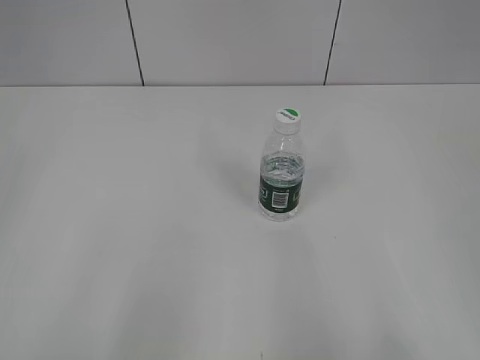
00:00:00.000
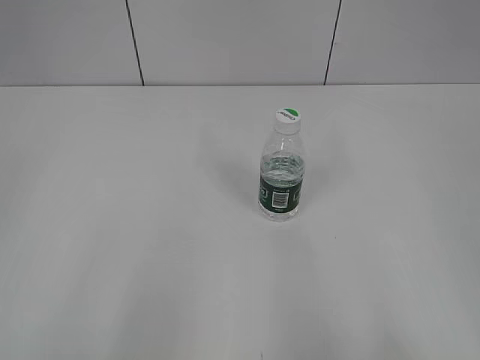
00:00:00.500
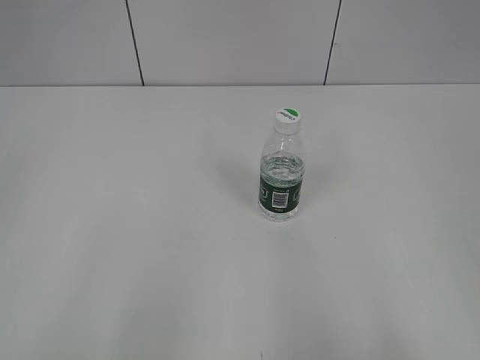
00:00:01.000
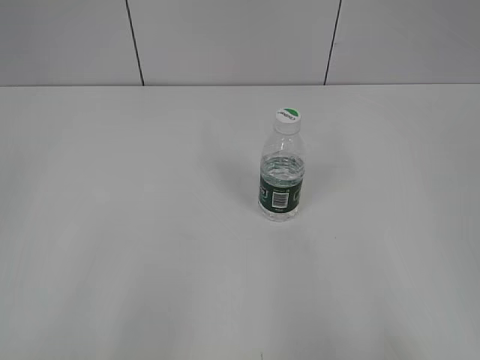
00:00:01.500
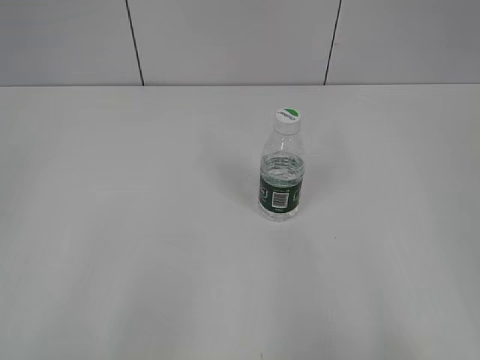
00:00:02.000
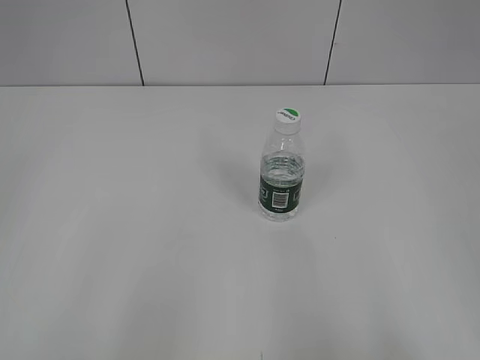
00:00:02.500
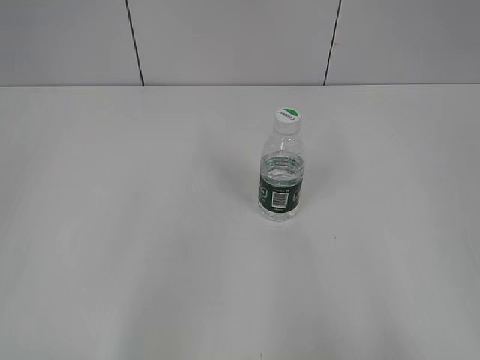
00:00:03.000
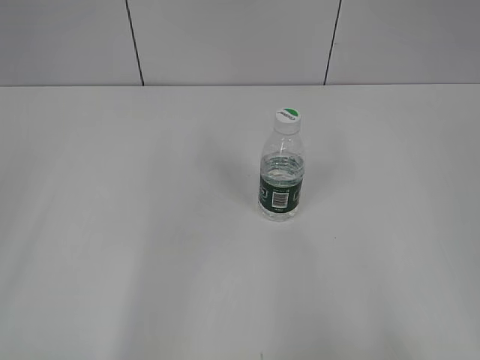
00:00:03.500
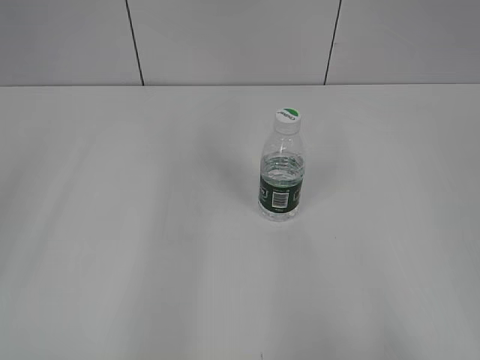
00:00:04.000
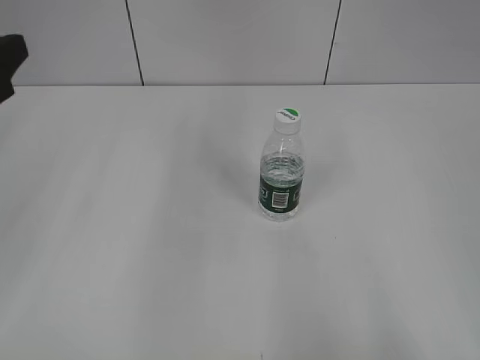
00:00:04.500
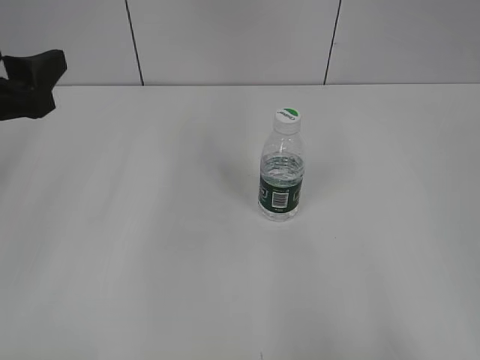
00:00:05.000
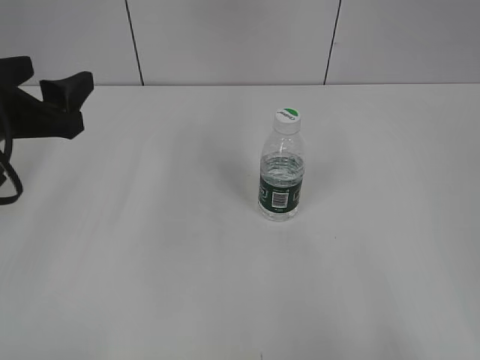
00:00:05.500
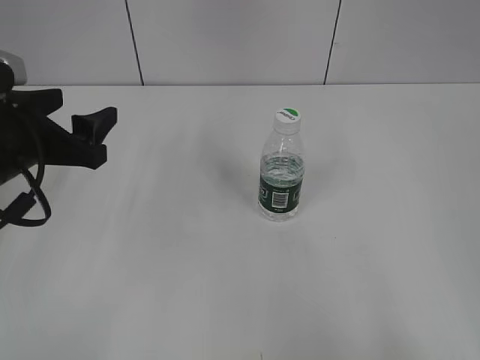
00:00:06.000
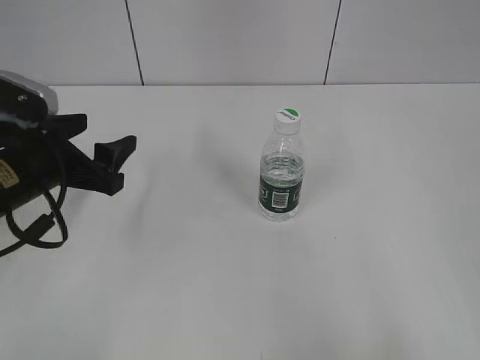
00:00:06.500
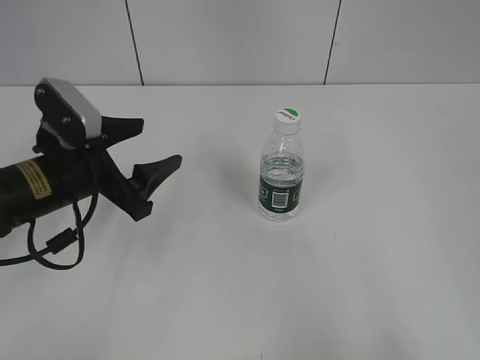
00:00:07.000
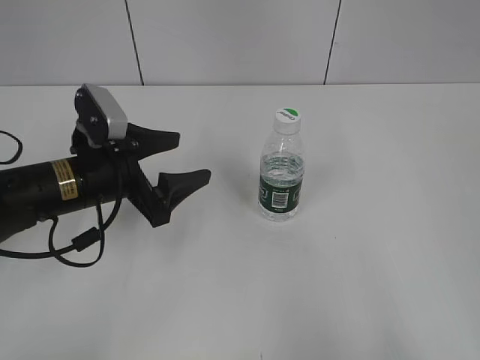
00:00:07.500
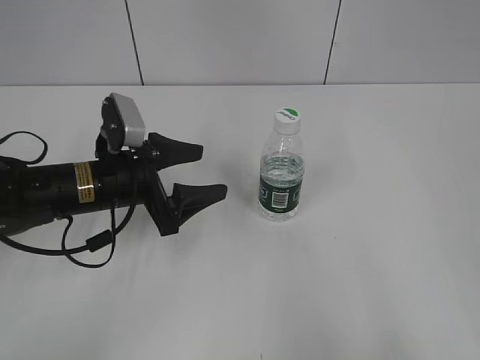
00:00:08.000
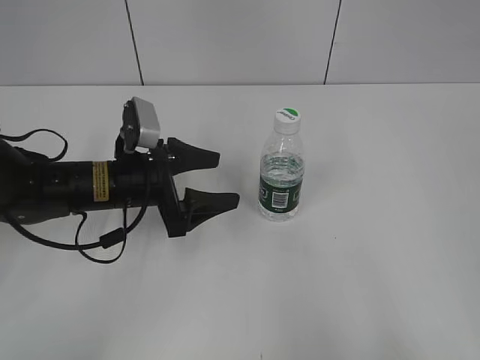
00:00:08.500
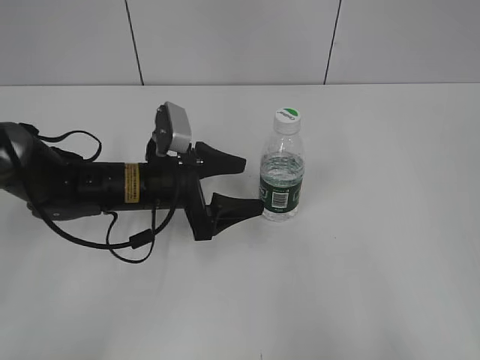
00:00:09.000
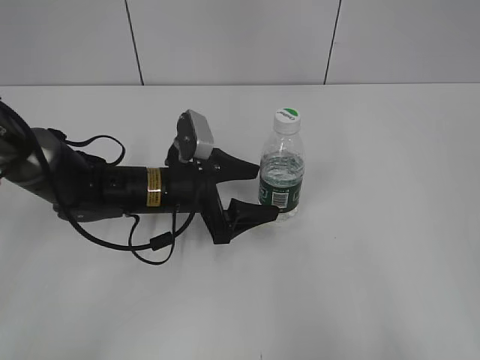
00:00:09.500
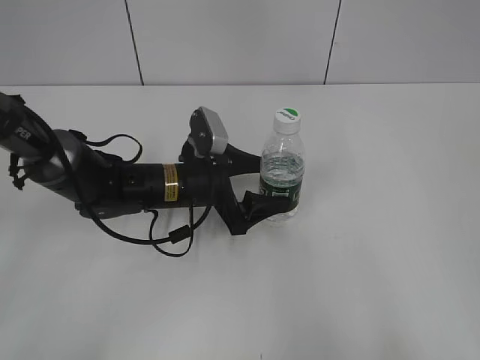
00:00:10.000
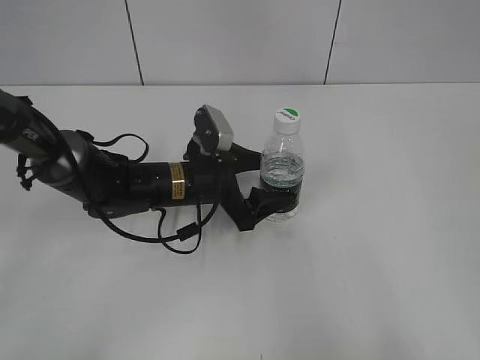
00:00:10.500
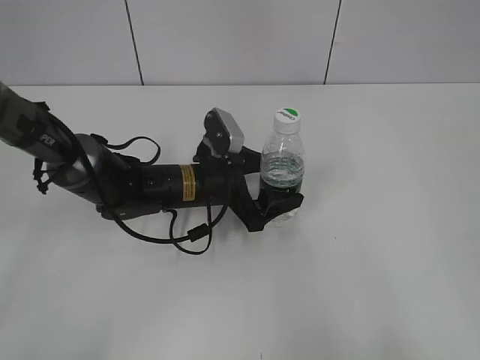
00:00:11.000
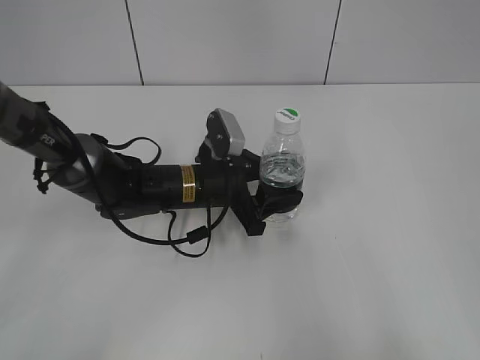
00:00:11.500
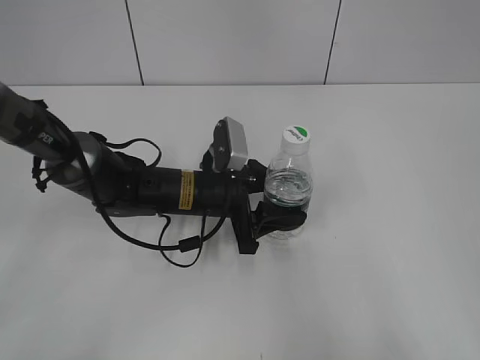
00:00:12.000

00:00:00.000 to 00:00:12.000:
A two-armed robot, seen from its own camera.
00:00:04.000 to 00:00:06.000: The left gripper goes about 15 cm downward, forward and to the right.
00:00:06.000 to 00:00:08.000: The left gripper travels downward and to the right by approximately 10 cm.
00:00:08.000 to 00:00:10.000: The left gripper heads to the right, covering roughly 10 cm.
00:00:10.000 to 00:00:12.000: The left gripper closes its fingers.

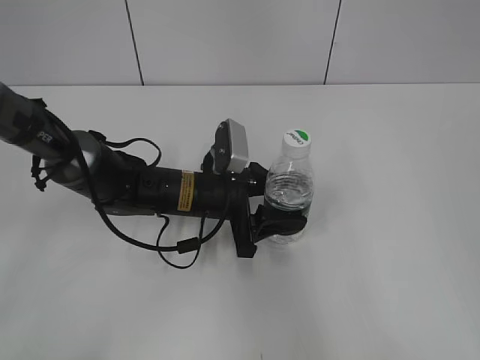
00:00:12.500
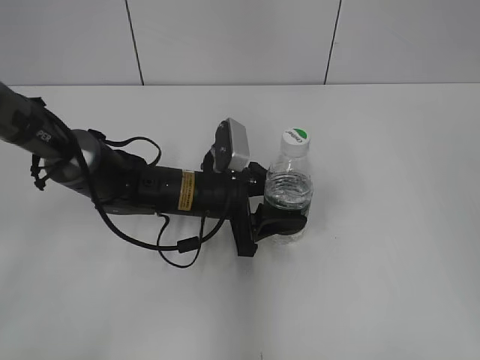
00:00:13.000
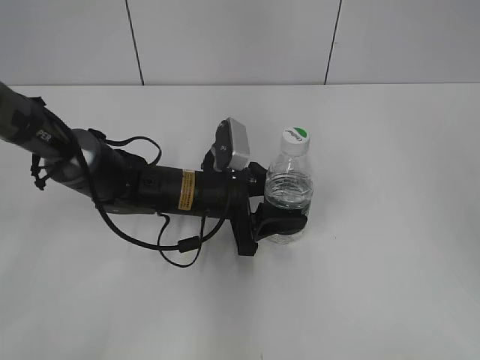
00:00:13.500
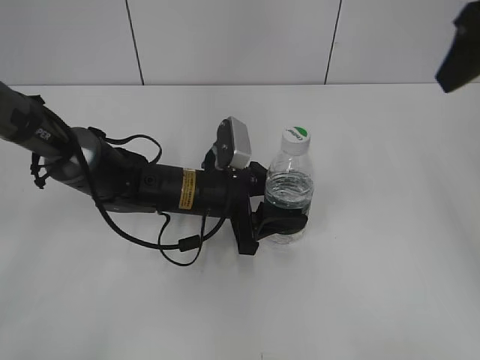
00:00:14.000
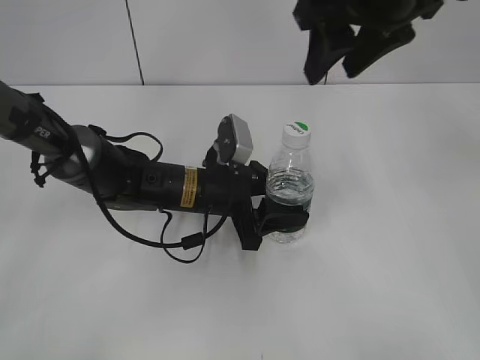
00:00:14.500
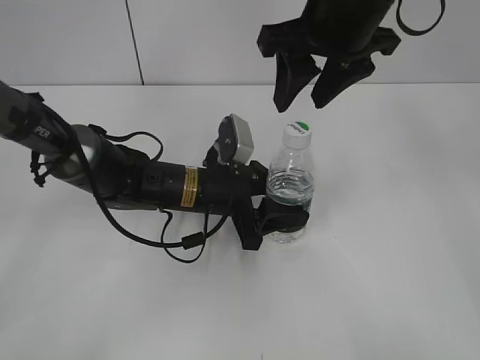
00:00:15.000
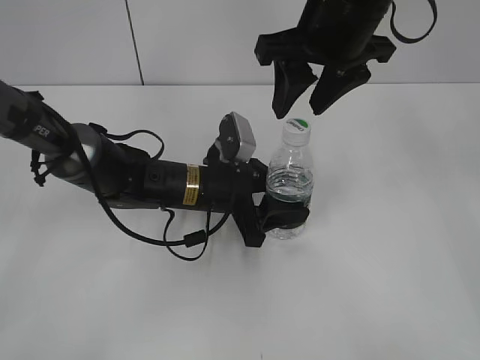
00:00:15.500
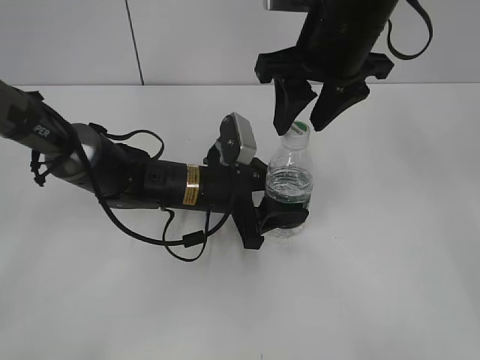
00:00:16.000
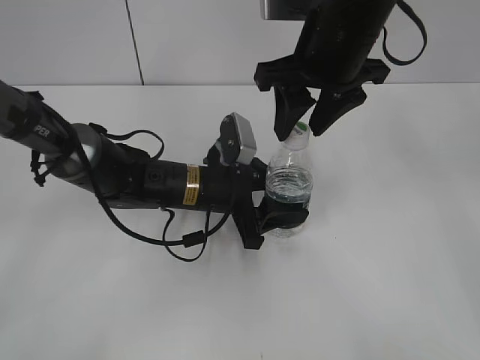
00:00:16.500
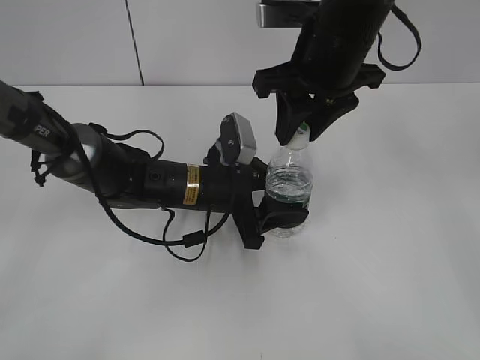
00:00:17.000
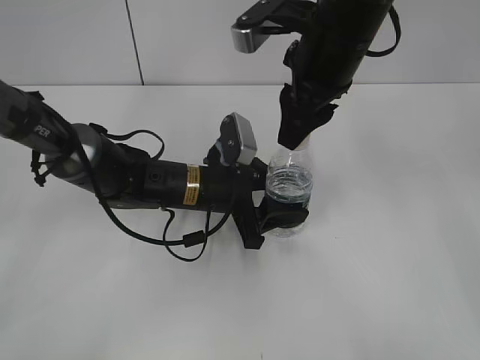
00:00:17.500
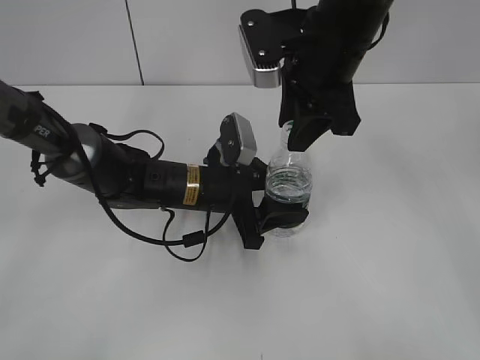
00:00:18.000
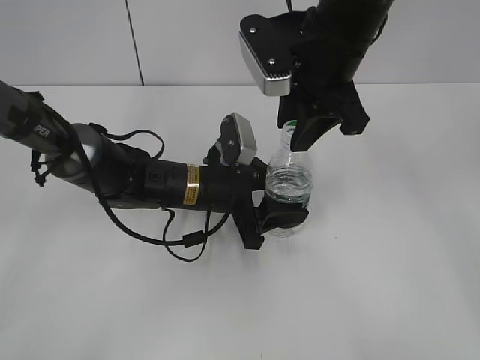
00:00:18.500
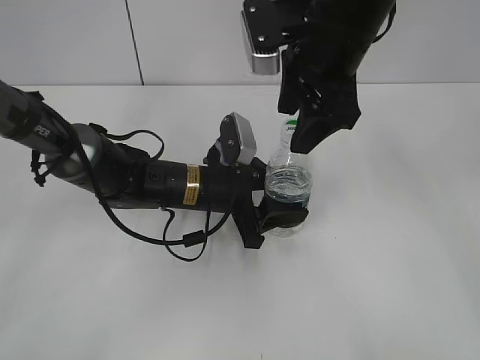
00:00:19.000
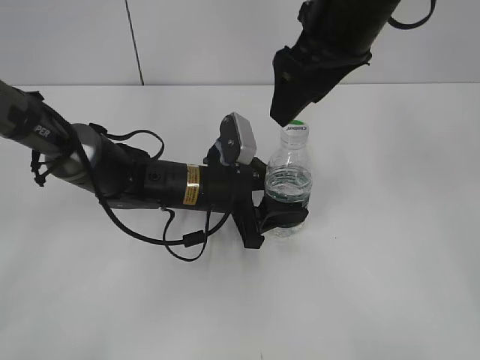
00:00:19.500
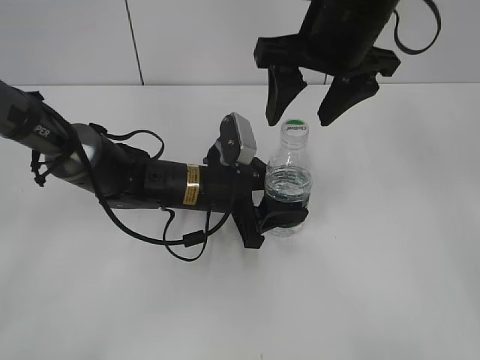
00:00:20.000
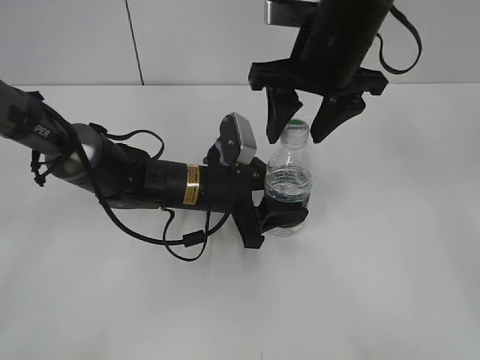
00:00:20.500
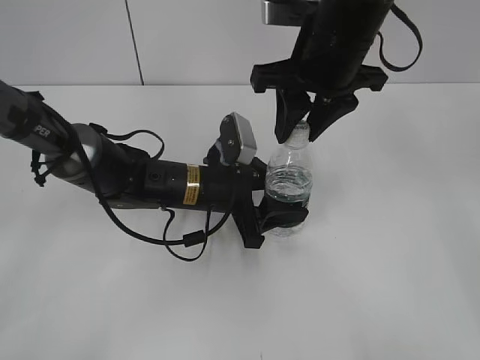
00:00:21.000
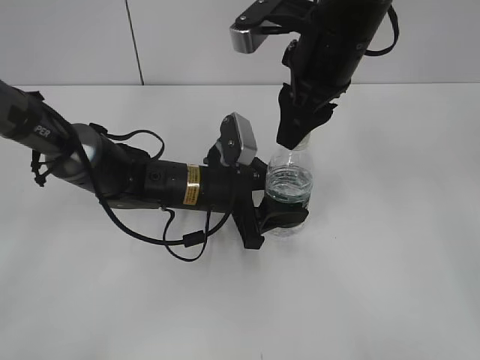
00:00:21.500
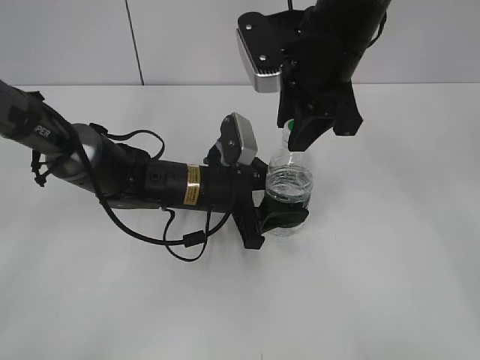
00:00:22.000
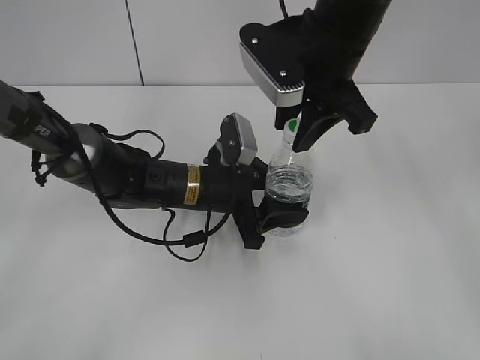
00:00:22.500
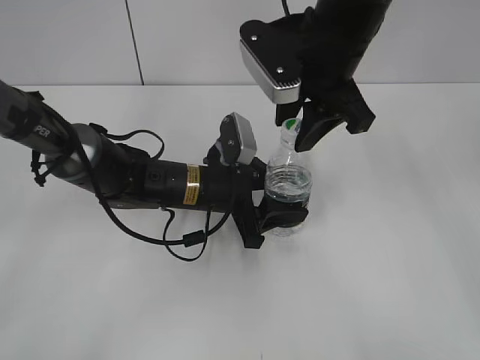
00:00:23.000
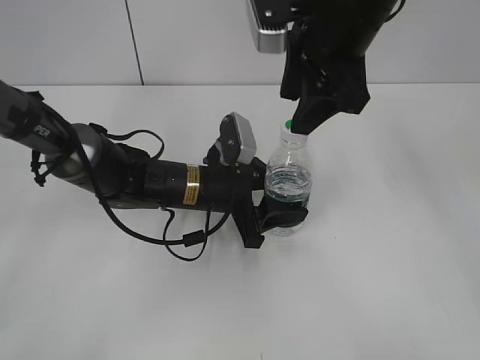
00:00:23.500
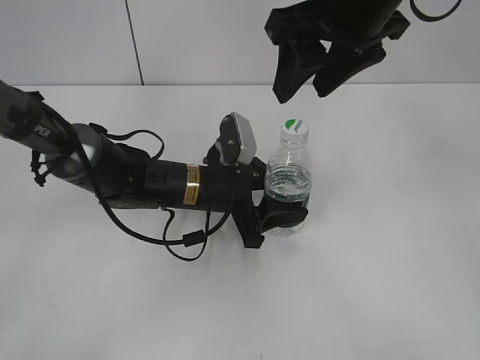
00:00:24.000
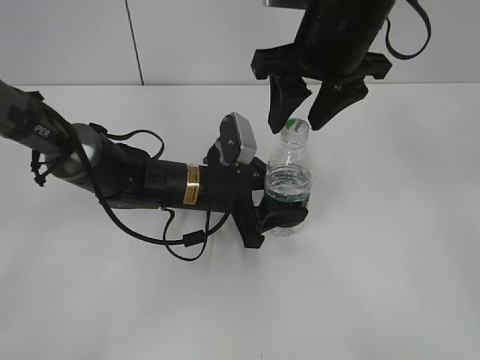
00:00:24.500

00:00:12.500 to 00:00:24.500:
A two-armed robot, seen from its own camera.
00:00:12.500 to 00:00:14.500: The right gripper travels forward and to the left by about 35 cm, and closes.
00:00:14.500 to 00:00:16.500: The right gripper goes approximately 5 cm downward.
00:00:16.500 to 00:00:18.500: The right gripper closes up.
00:00:18.500 to 00:00:20.500: The right gripper opens its fingers.
00:00:20.500 to 00:00:22.500: The right gripper closes up.
00:00:22.500 to 00:00:24.500: The right gripper opens up.

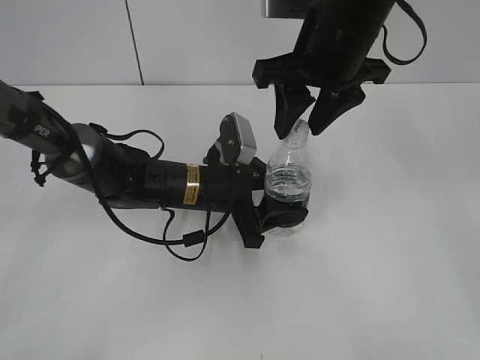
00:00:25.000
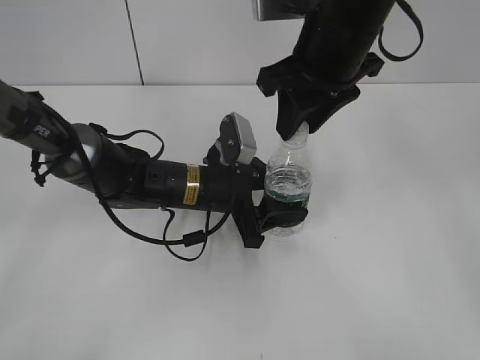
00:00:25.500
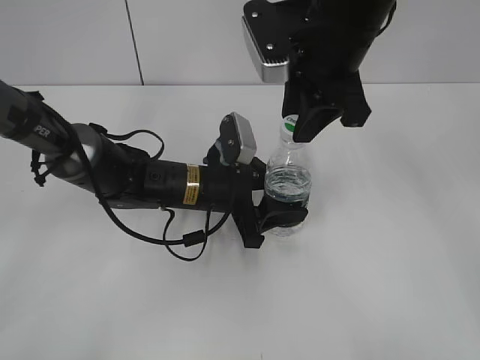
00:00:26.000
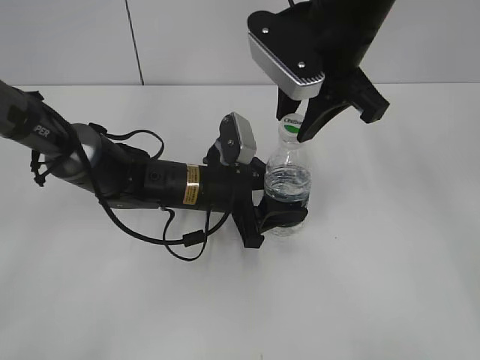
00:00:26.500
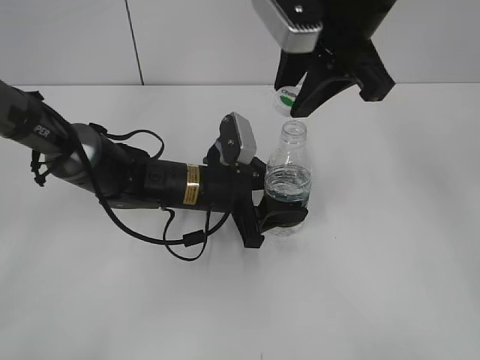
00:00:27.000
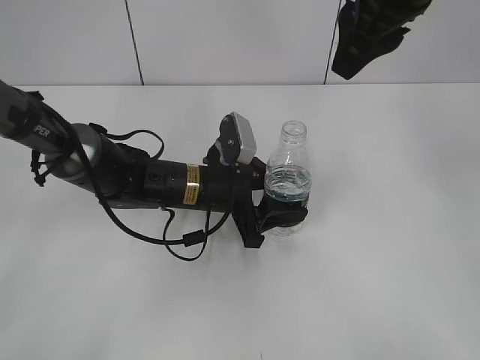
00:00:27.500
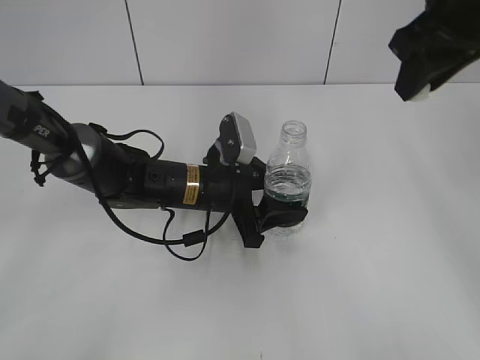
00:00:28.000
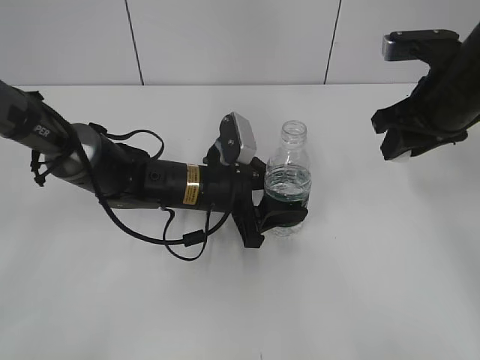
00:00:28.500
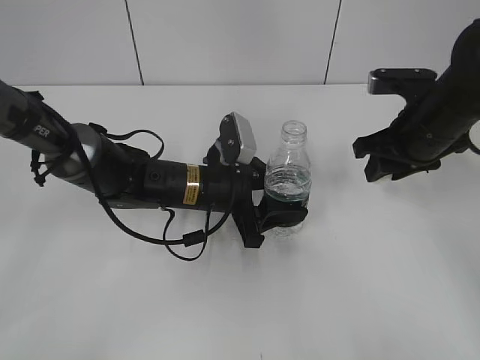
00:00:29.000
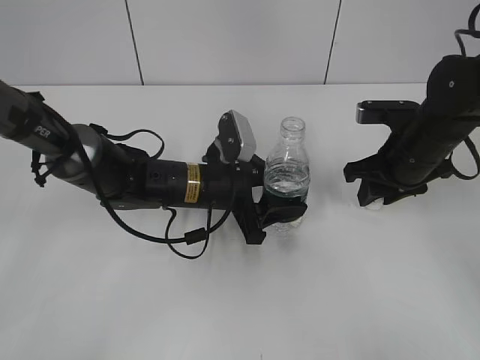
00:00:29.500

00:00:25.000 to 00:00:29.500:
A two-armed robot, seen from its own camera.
00:00:25.000 to 00:00:27.000: The right gripper closes up.
00:00:27.000 to 00:00:29.500: The right gripper travels downward and to the right by some 25 cm.
